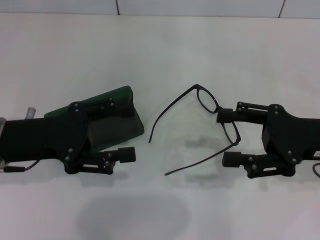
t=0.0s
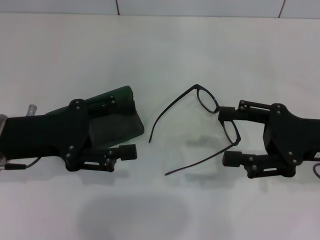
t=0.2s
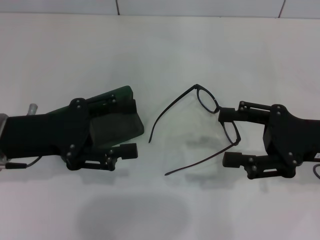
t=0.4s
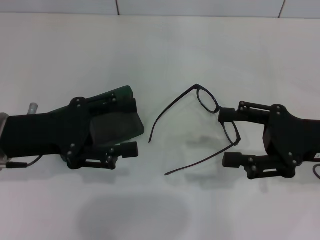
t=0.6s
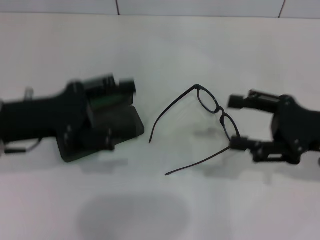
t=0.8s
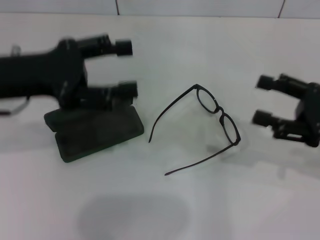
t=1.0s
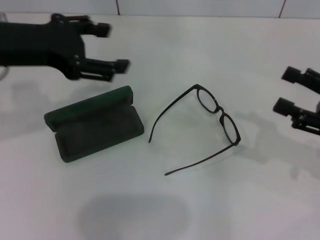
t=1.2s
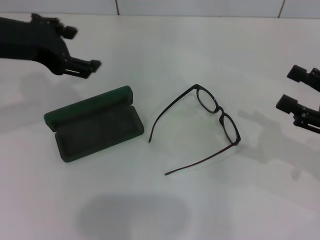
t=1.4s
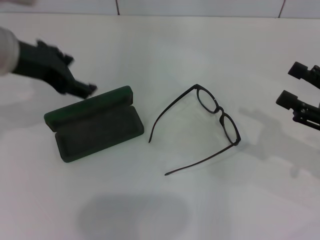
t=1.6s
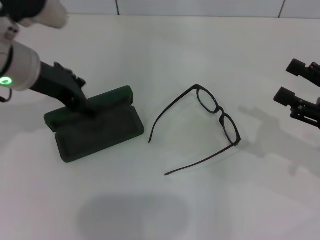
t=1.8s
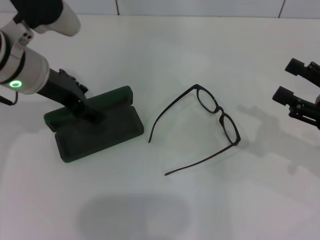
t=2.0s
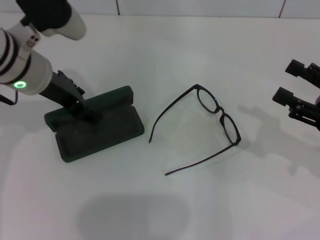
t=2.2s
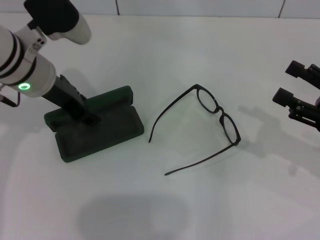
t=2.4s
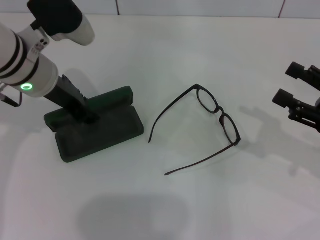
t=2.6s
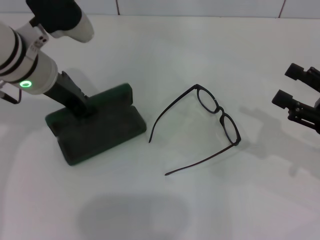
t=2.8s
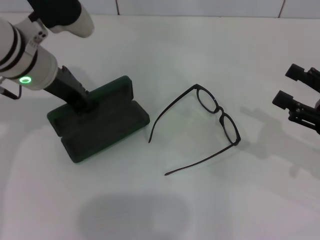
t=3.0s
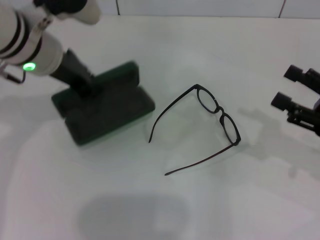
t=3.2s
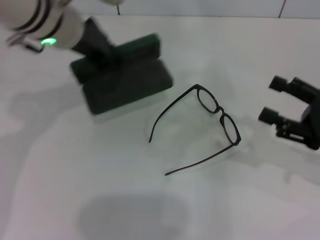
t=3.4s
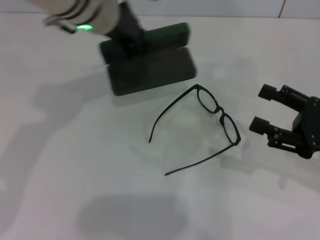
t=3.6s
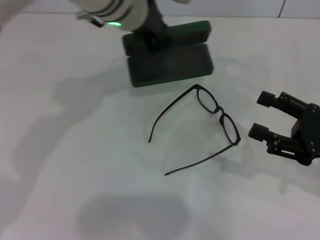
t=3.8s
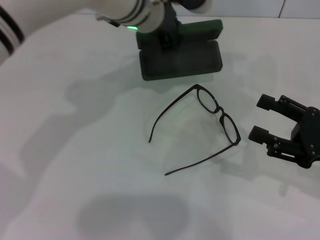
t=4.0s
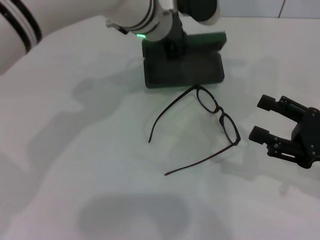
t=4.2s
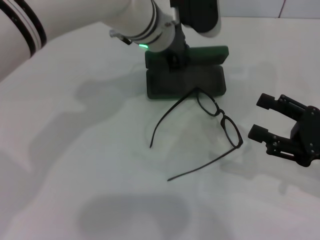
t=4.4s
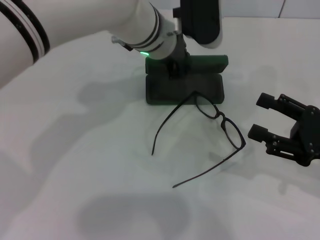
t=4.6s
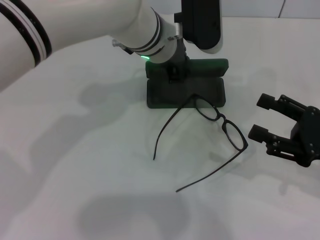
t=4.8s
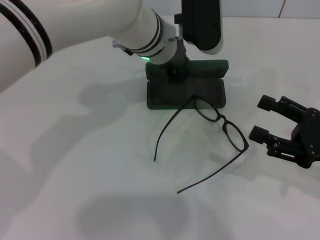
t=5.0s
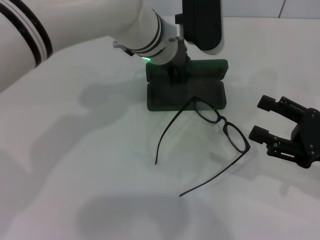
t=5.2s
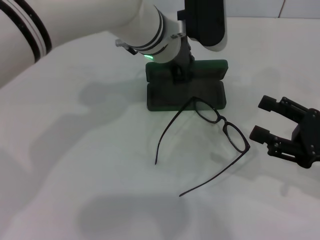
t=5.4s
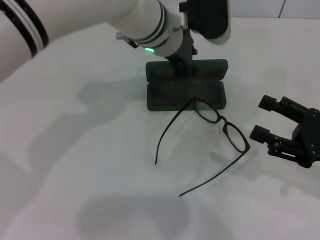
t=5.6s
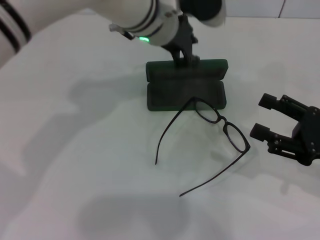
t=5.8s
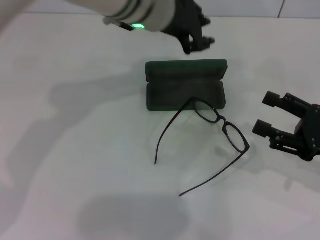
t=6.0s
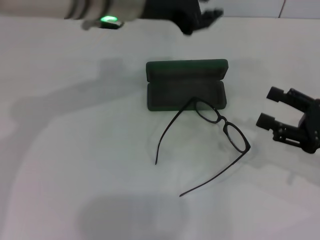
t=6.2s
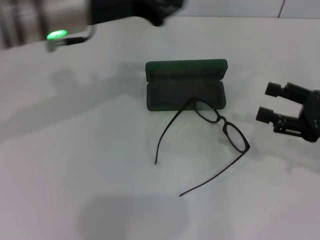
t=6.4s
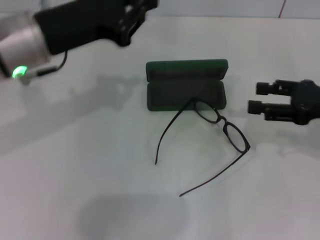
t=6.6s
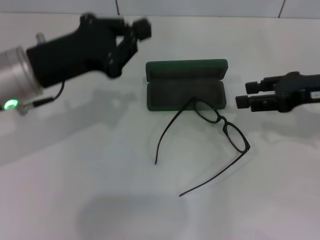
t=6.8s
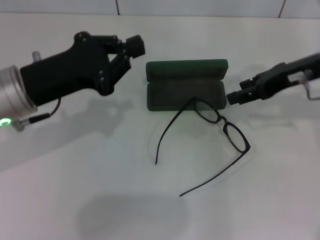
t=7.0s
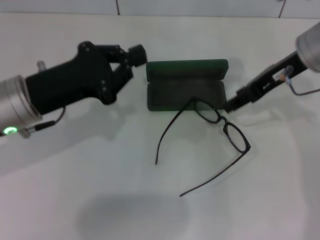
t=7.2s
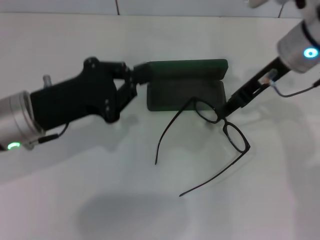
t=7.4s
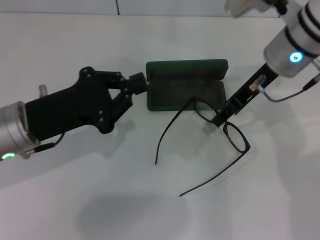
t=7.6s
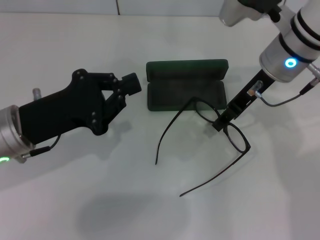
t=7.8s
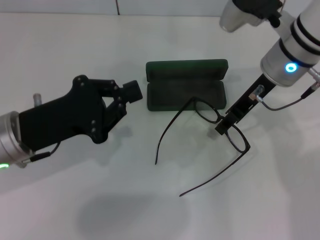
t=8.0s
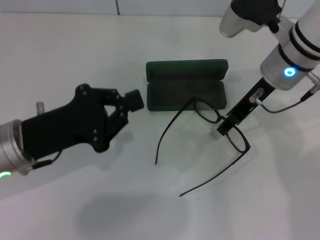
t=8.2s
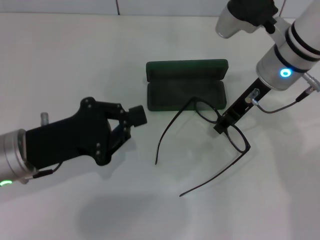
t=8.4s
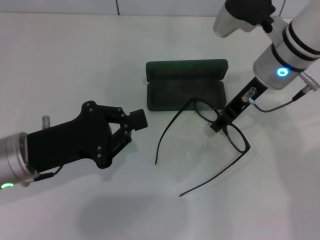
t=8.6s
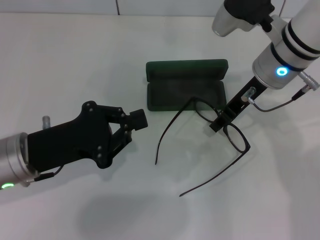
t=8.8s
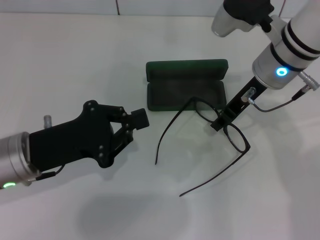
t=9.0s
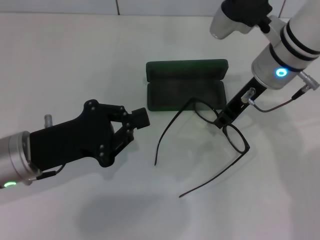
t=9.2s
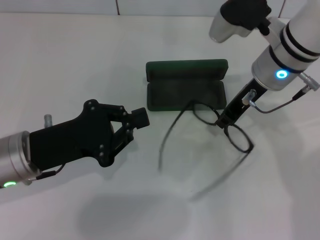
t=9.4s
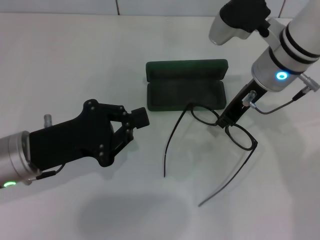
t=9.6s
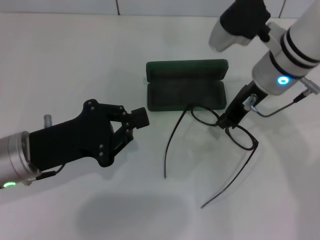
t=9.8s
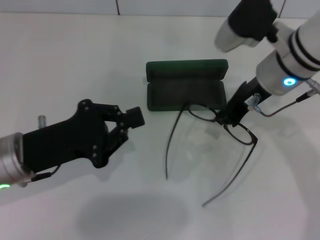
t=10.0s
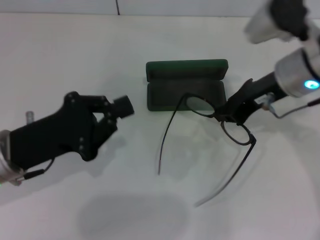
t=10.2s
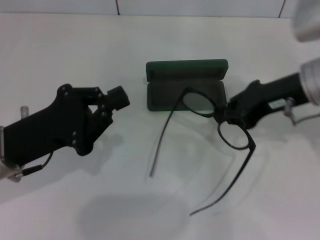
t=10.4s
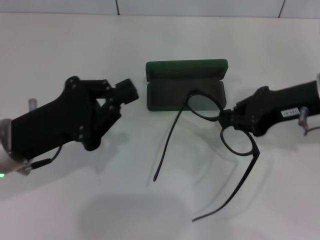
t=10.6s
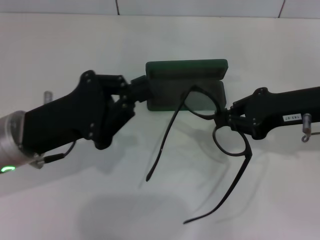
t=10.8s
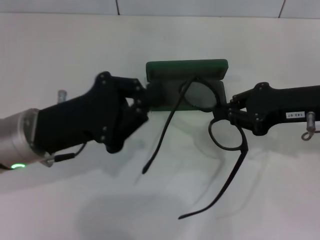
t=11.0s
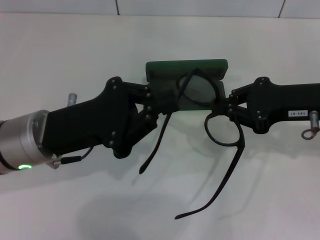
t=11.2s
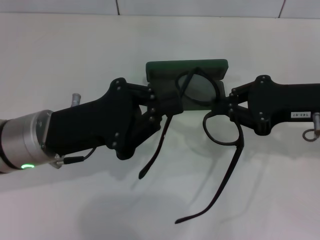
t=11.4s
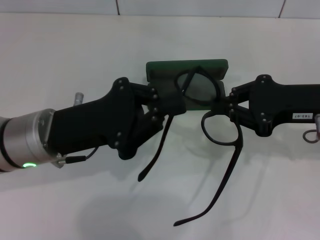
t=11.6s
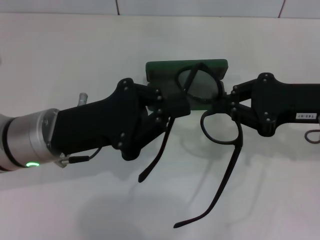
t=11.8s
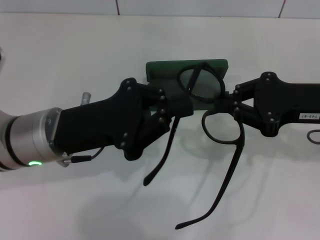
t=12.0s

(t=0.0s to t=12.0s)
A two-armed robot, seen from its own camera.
Step, t=0.0s - t=2.4s: Grab the glasses case with your left hand.
Step, t=2.6s - t=5.2s: Place the glasses case in the center of the table with your left hand.
Step, t=5.4s - t=9.4s: Grab the eyeglass frame with your right hand.
t=0.0s - t=1.6s: The left gripper goes approximately 10 cm upward and forward; the right gripper moves to the right, some 5 cm.
t=1.6s - t=3.0s: The left gripper ends up about 5 cm from where it was, and closes up.
t=3.0s - t=4.4s: The left gripper moves to the right and forward, some 15 cm.
t=4.4s - t=6.0s: The left gripper heads upward, covering some 5 cm.
t=6.0s - t=7.6s: The right gripper travels to the left, forward and upward by some 25 cm, and closes up, while the left gripper moves to the left, backward and downward, about 25 cm, and closes.
t=9.0s - t=10.4s: The right gripper heads to the right and backward, covering some 10 cm, and closes.
t=10.4s - t=12.0s: The left gripper goes about 5 cm to the right. The right gripper shifts by approximately 5 cm.

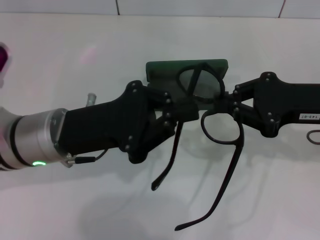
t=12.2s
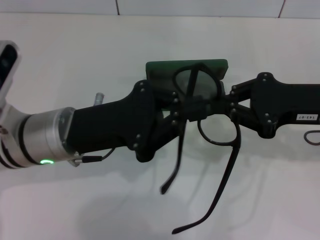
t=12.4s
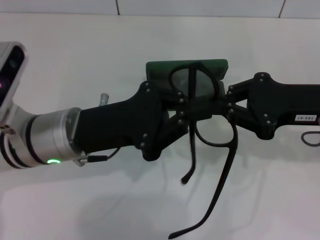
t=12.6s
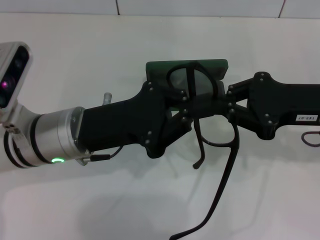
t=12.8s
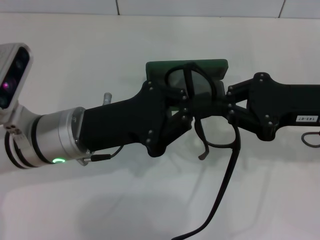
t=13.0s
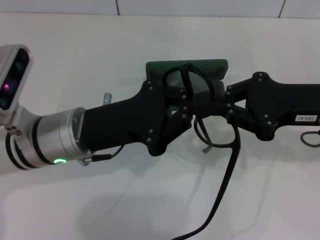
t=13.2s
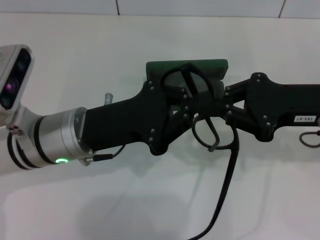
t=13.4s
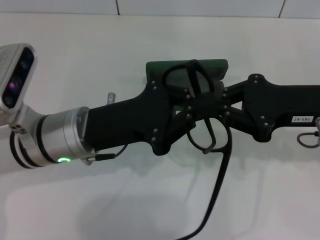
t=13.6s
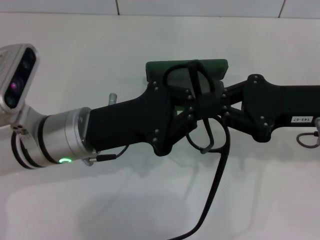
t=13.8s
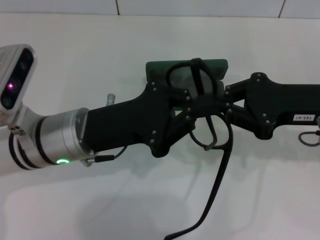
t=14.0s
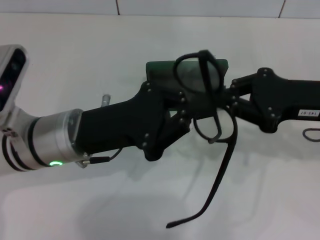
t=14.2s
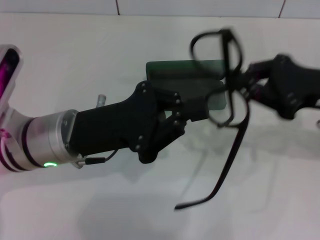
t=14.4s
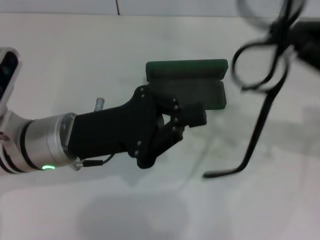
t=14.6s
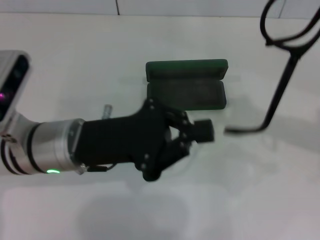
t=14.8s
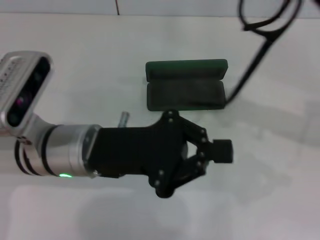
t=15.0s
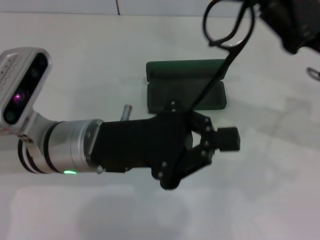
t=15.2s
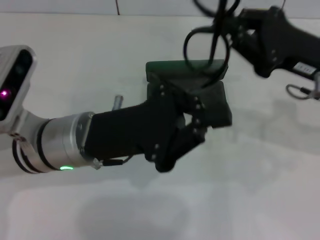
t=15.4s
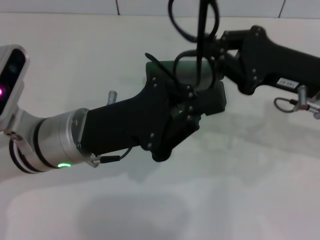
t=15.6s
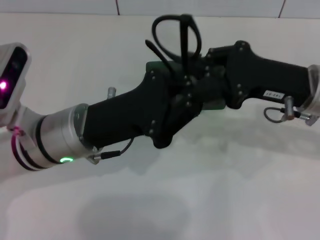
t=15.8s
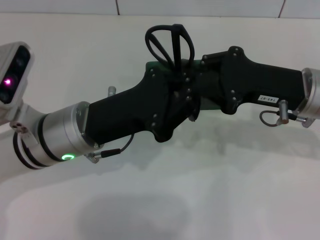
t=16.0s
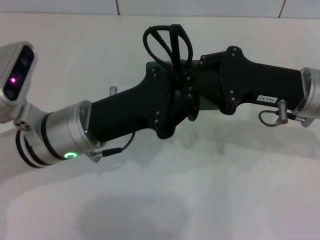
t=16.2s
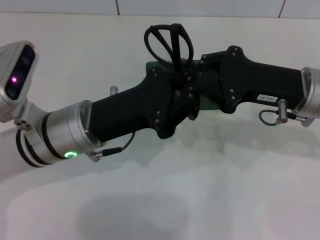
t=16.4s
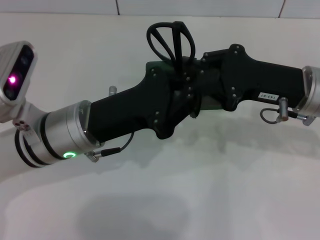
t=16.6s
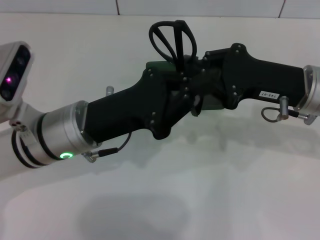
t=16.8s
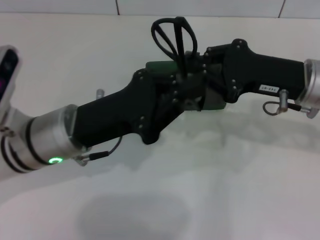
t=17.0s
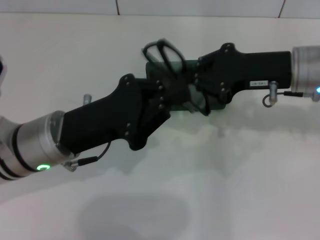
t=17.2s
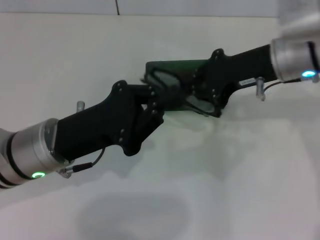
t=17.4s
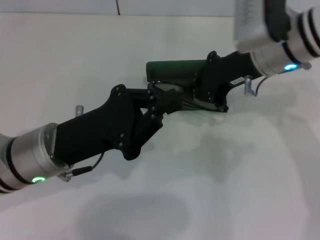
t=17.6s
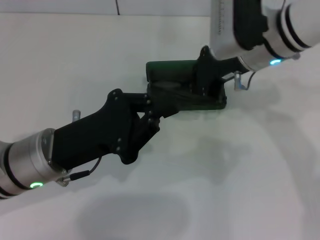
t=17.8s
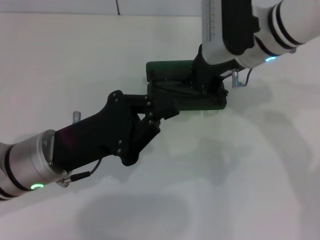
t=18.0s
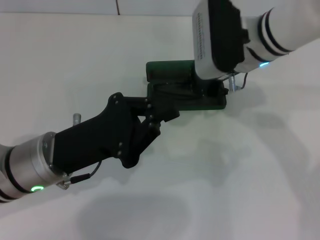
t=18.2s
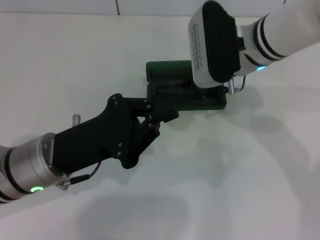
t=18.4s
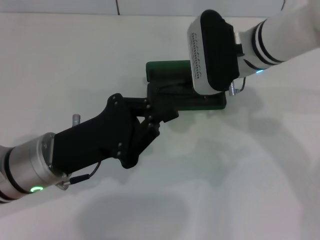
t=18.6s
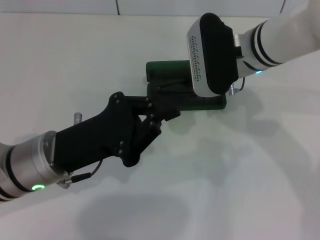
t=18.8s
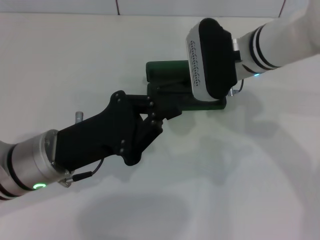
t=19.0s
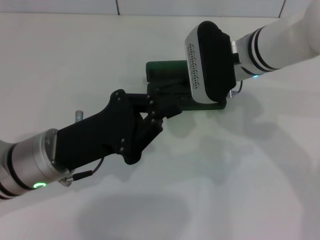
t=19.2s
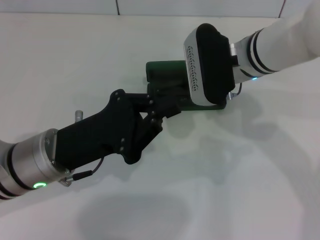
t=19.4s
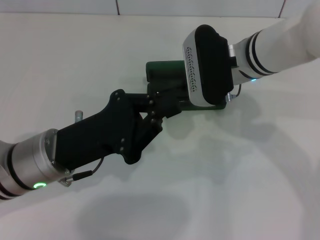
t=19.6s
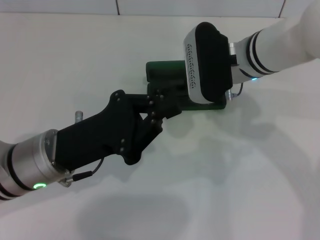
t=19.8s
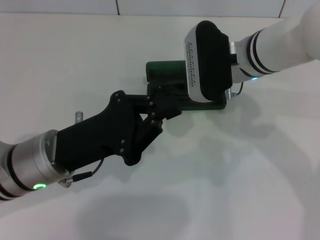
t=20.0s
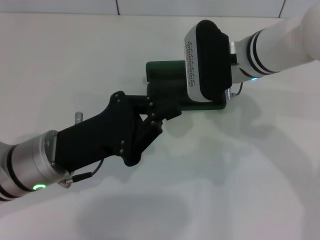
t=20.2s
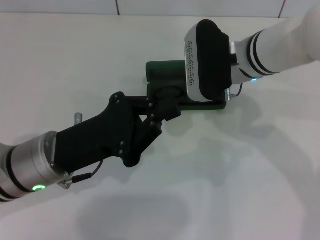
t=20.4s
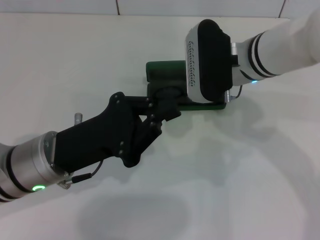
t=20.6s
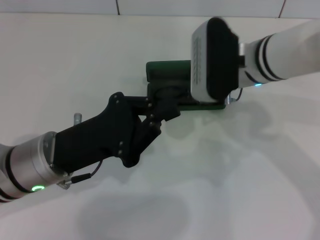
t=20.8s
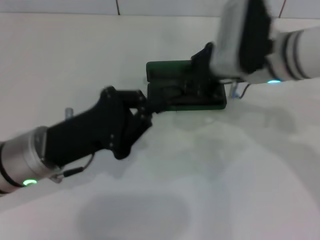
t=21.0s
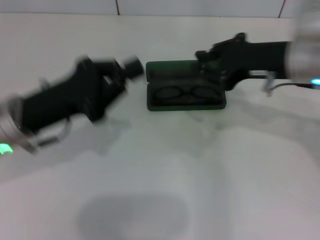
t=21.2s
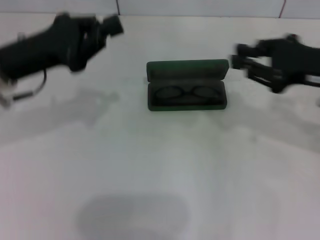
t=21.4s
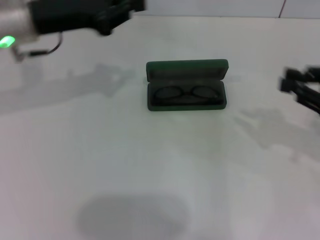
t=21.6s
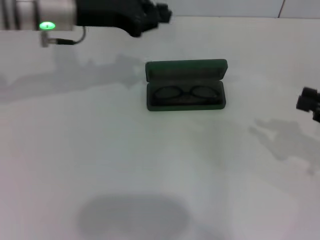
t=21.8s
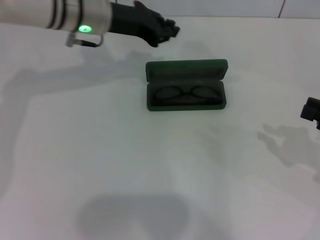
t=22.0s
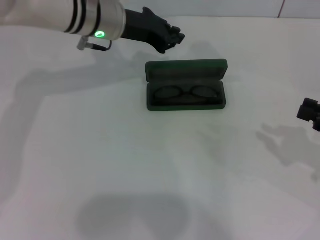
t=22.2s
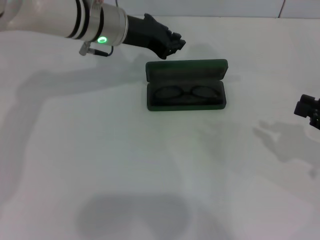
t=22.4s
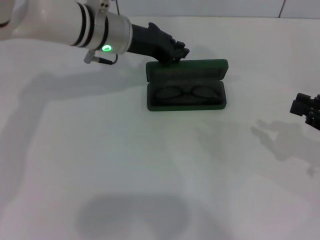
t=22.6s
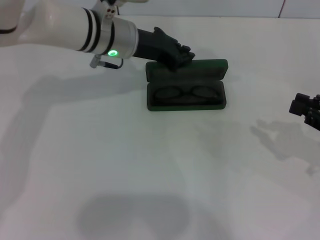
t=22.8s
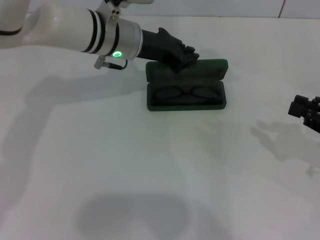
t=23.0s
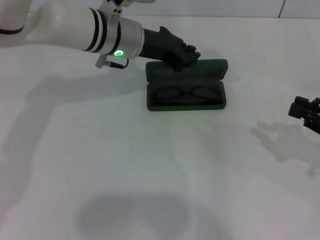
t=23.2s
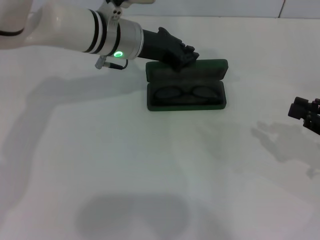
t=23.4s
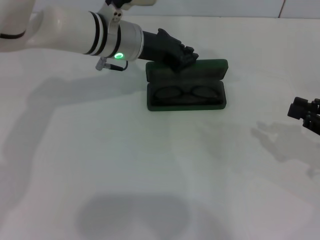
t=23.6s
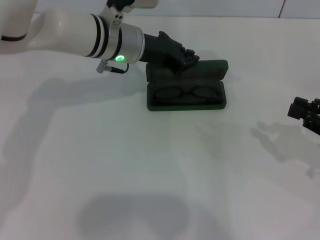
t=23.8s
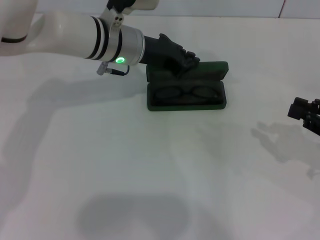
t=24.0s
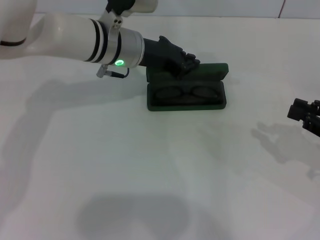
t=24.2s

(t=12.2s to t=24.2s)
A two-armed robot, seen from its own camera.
Step, t=12.2s - t=16.6s: Fold the frame with your left hand.
Step, t=16.8s - t=20.6s: Put the glasses into the case with your right hand.
t=12.2s - t=13.8s: The grippers make only small movements.
t=15.2s - t=16.6s: The right gripper moves some 5 cm.
t=16.6s - t=18.2s: The right gripper is displaced to the left and forward by about 10 cm. The left gripper shifts by approximately 5 cm.
t=18.2s - t=19.8s: The grippers move only a little.
t=19.8s - t=21.2s: The left gripper ends up about 5 cm from where it was, while the right gripper travels to the right by about 10 cm.
t=21.2s - t=22.6s: The left gripper heads forward and to the right, covering about 20 cm. The right gripper moves to the right, backward and downward, roughly 20 cm.
t=22.6s - t=24.2s: The grippers stay close to where they were, moving slightly.
